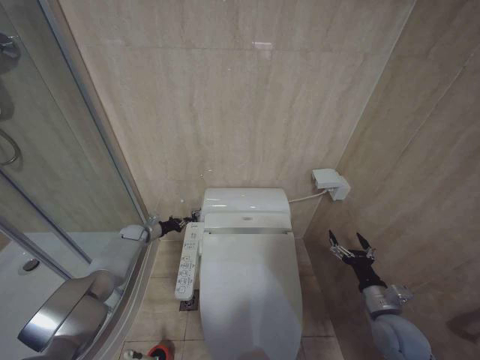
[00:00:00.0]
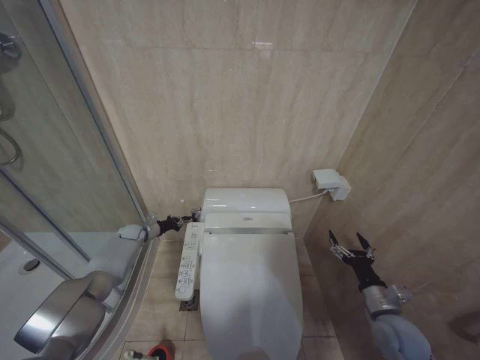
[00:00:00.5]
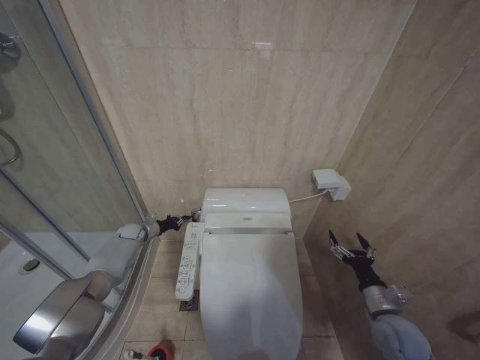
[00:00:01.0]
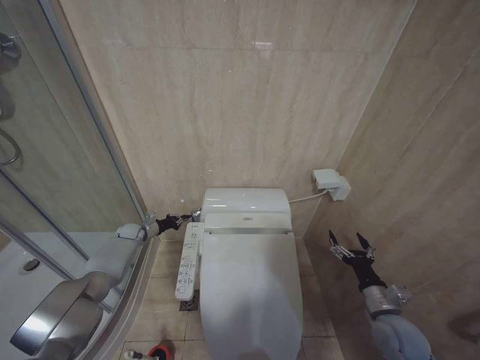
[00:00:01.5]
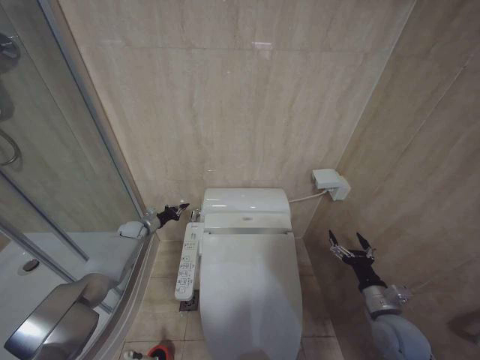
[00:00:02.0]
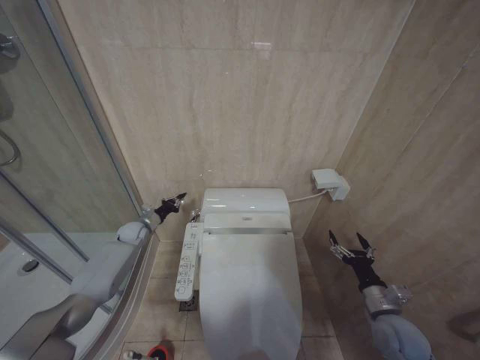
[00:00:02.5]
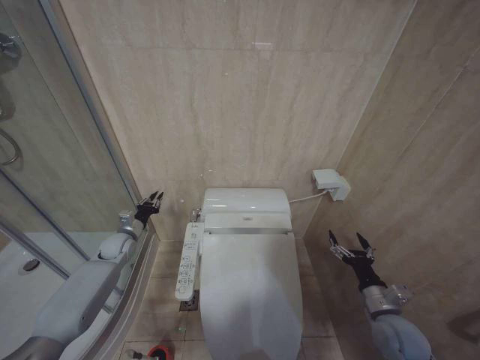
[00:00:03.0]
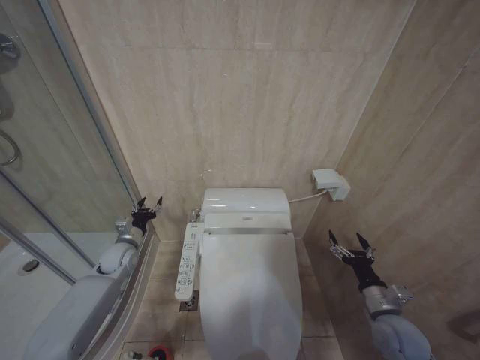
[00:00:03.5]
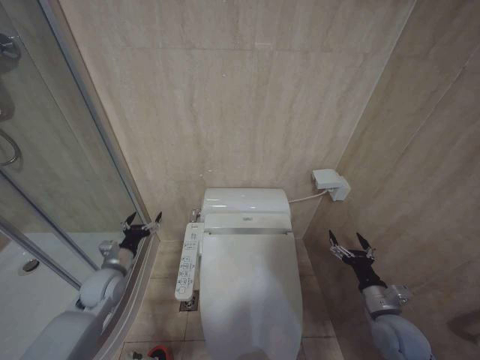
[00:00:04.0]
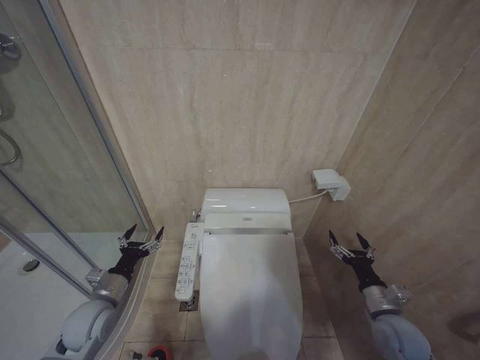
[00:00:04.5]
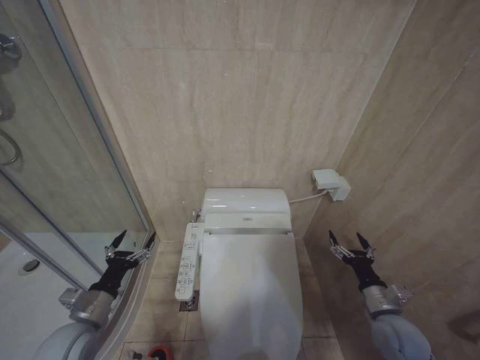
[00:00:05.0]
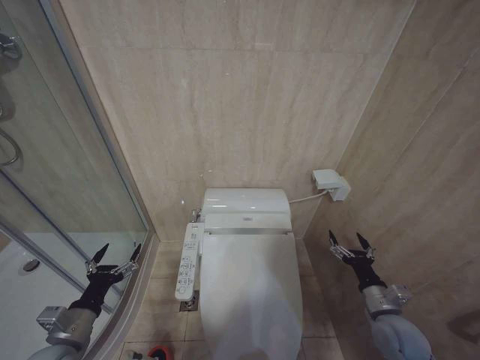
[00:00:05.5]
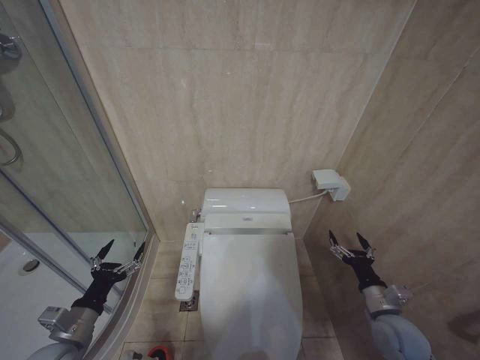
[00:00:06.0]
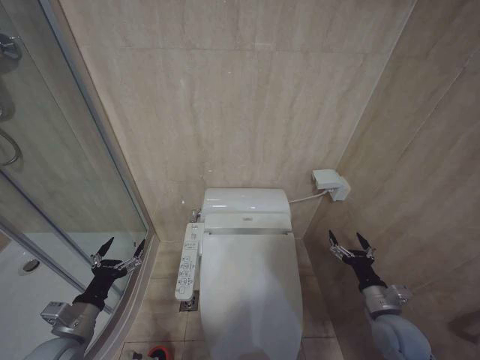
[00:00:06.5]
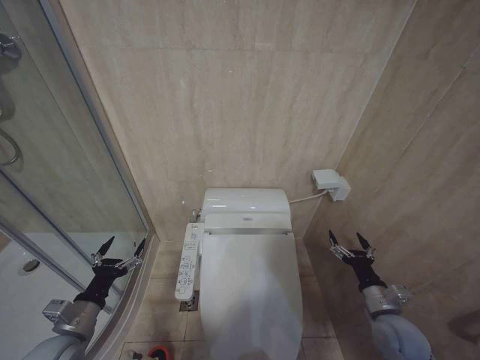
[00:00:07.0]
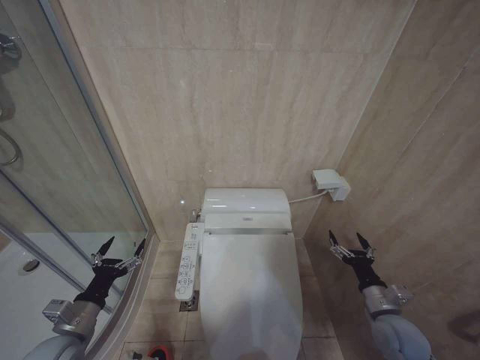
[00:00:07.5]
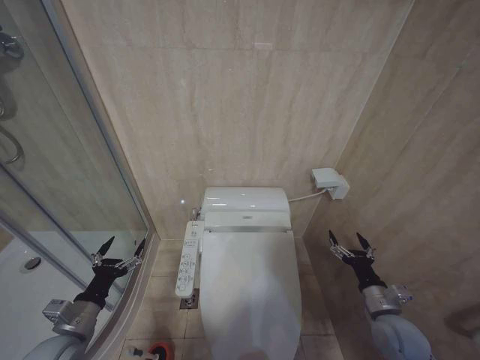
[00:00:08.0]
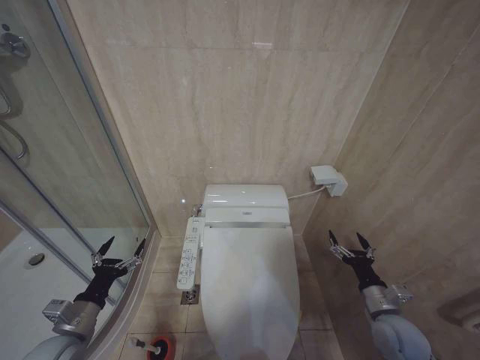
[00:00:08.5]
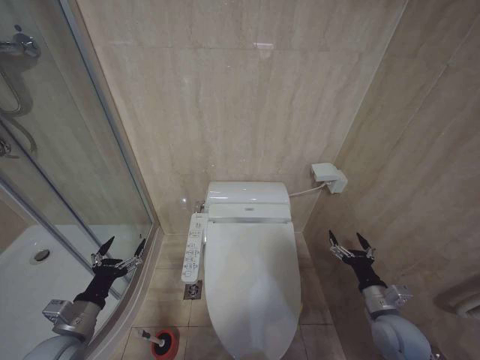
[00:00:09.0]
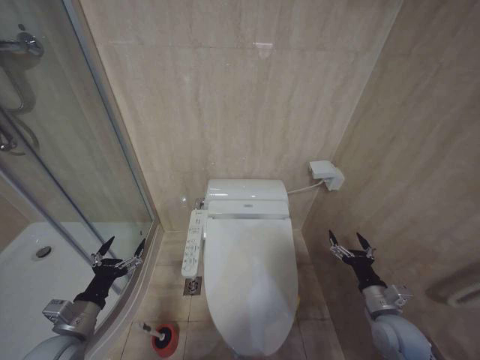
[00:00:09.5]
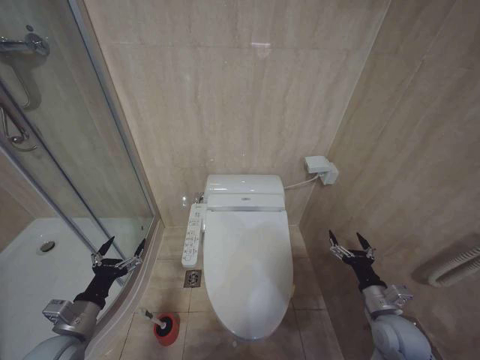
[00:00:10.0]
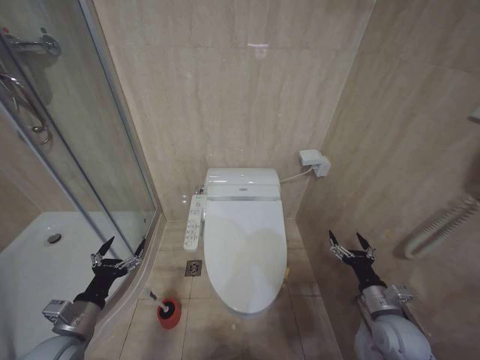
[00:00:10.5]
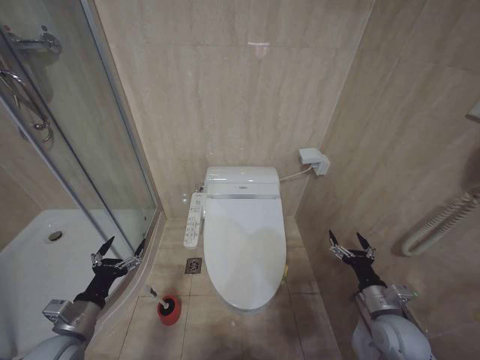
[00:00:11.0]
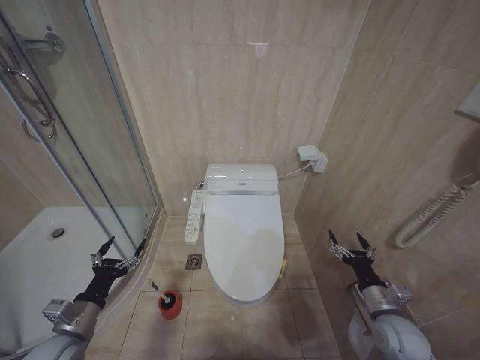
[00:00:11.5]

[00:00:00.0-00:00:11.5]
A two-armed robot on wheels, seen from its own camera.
Task of the whole recording: Open the toilet lid, clean the toilet bowl with a toilet brush, close the toilet lid, and flush.
00:00:00.0 to 00:00:02.0: The grippers move only a little.
00:00:02.0 to 00:00:04.0: The left gripper moves backward, about 20 cm, and opens.
00:00:04.0 to 00:00:06.0: The left gripper heads backward, covering about 15 cm.
00:00:06.0 to 00:00:11.5: Both grippers stay about where they are.

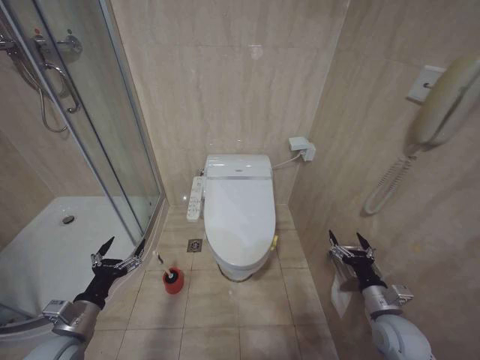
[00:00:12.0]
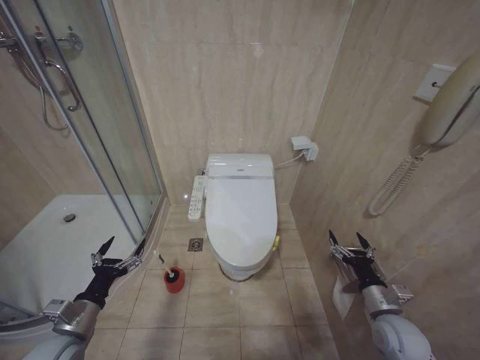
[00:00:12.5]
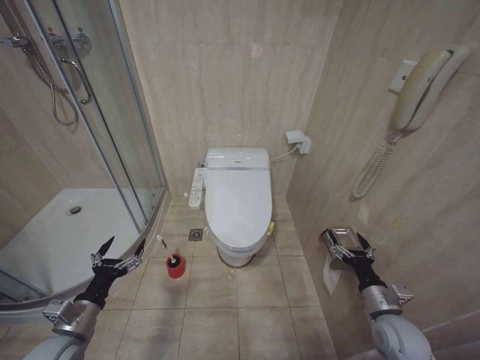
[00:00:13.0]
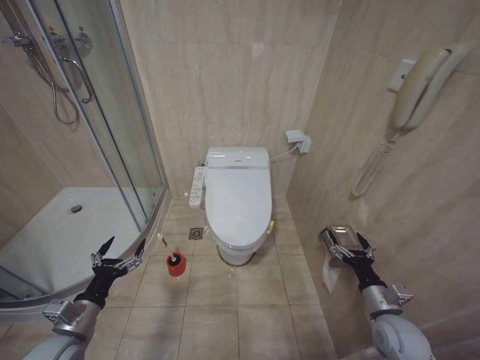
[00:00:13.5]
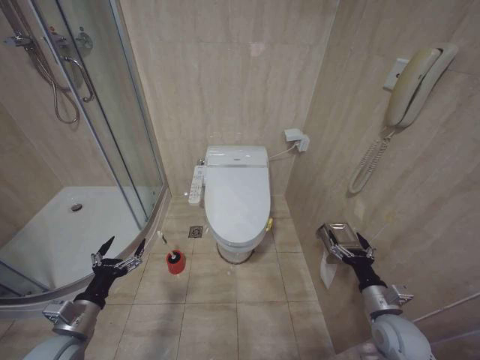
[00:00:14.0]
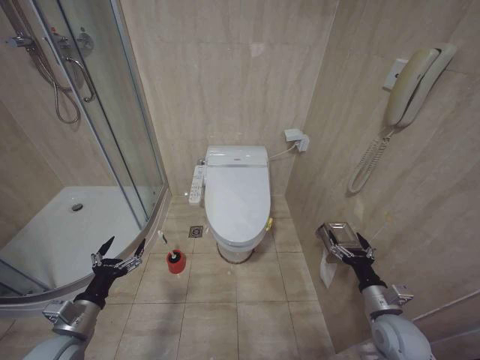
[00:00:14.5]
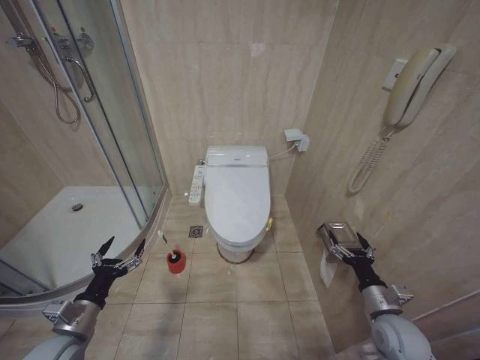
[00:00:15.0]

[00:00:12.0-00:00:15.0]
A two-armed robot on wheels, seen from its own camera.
Task of the whole recording: Open the toilet lid, clean the toilet bowl with a toilet brush, close the toilet lid, and flush.
00:00:12.0 to 00:00:15.0: Both grippers stay put.
